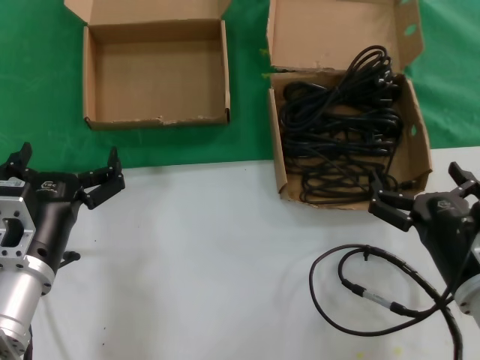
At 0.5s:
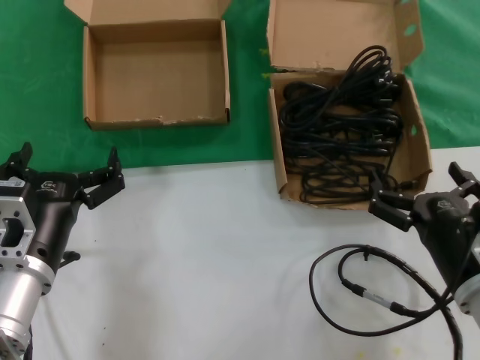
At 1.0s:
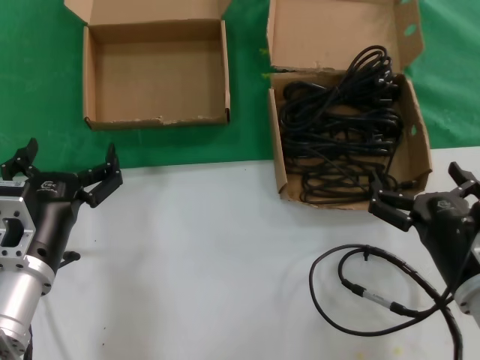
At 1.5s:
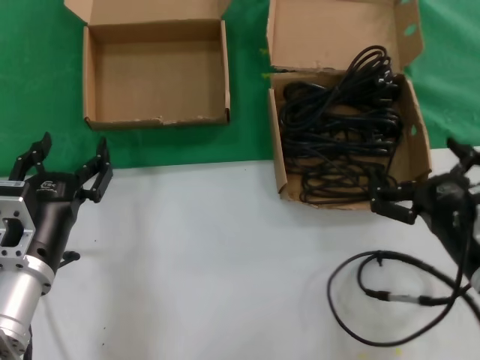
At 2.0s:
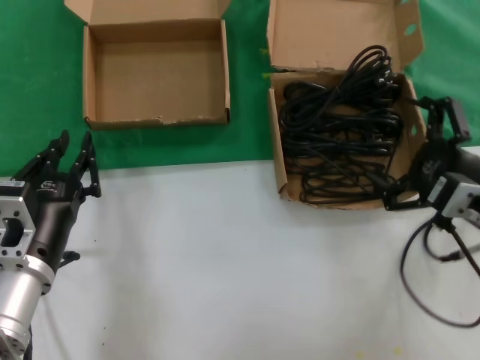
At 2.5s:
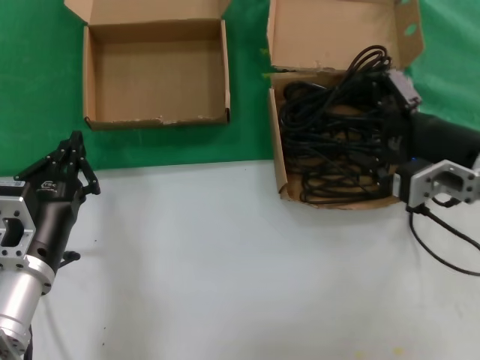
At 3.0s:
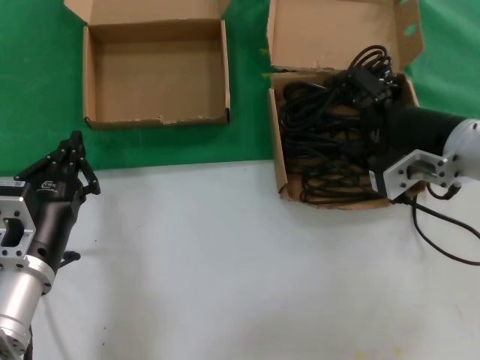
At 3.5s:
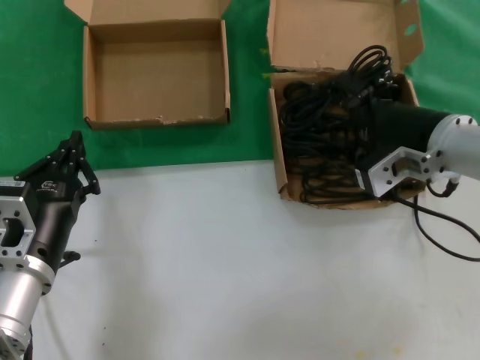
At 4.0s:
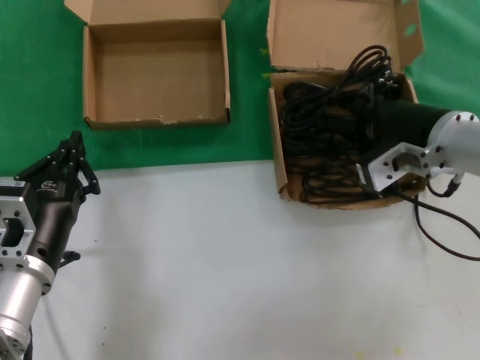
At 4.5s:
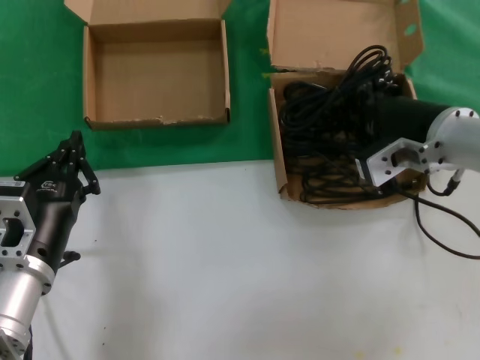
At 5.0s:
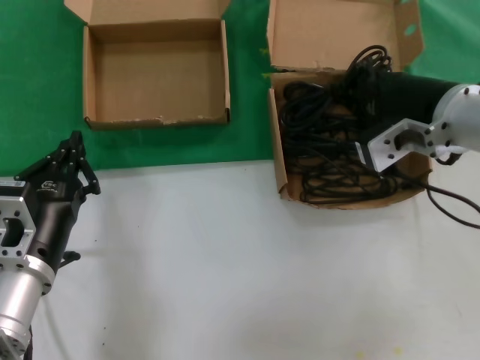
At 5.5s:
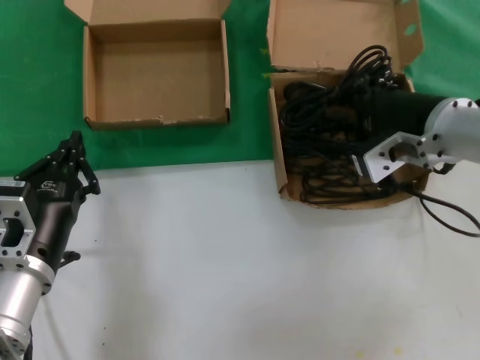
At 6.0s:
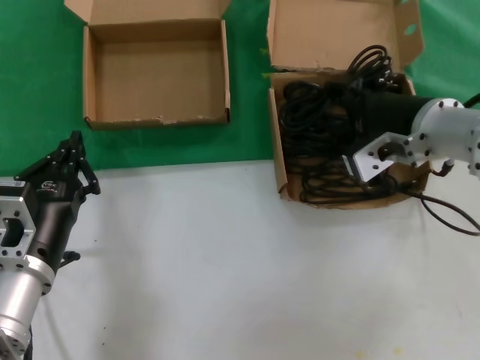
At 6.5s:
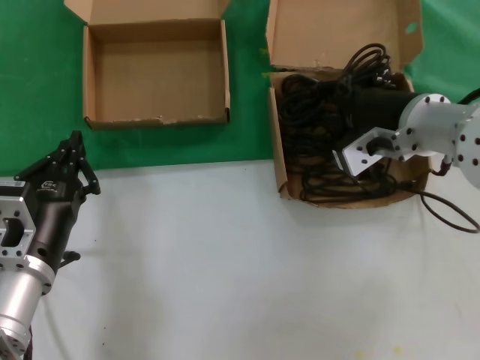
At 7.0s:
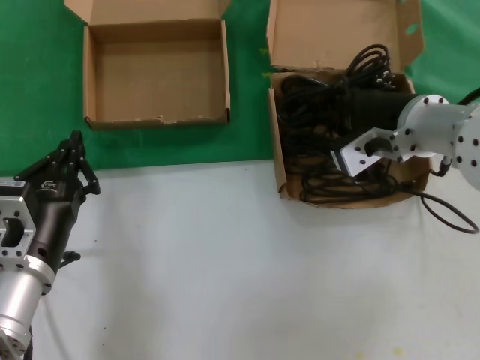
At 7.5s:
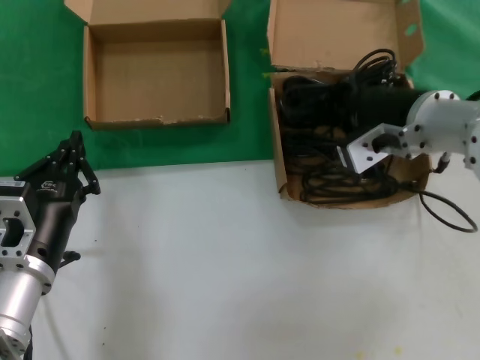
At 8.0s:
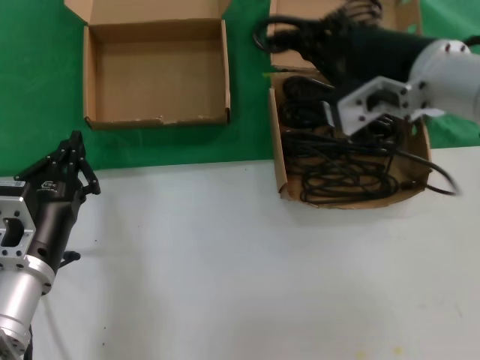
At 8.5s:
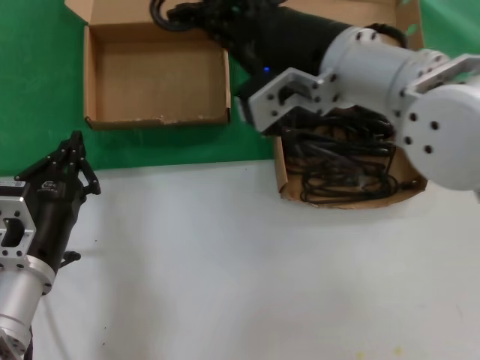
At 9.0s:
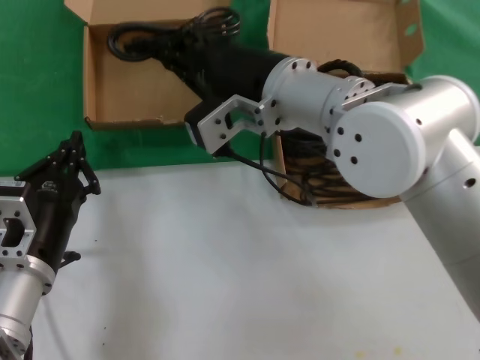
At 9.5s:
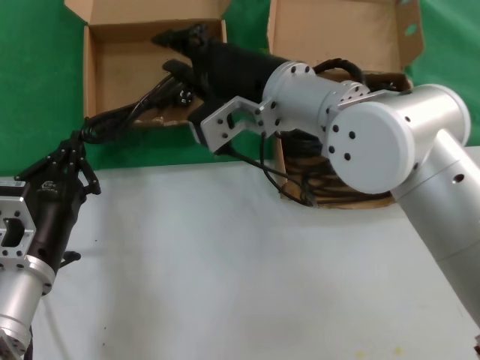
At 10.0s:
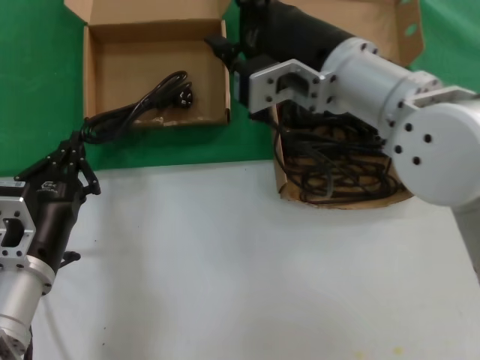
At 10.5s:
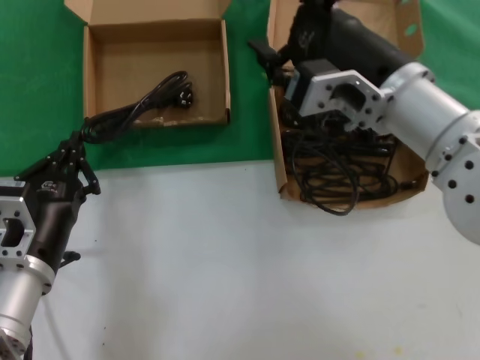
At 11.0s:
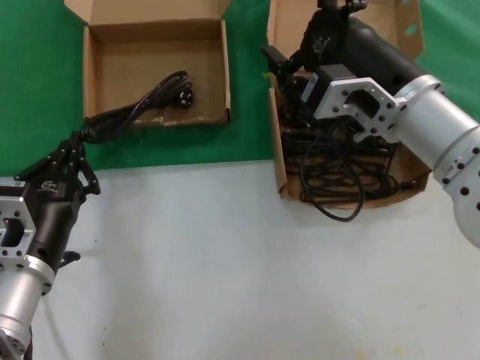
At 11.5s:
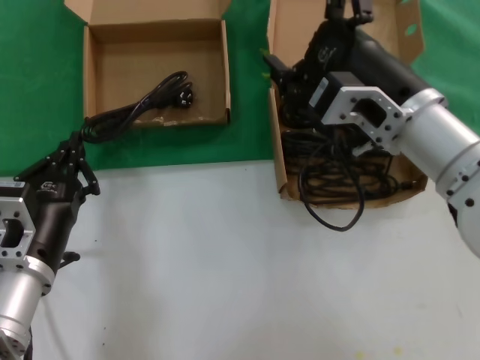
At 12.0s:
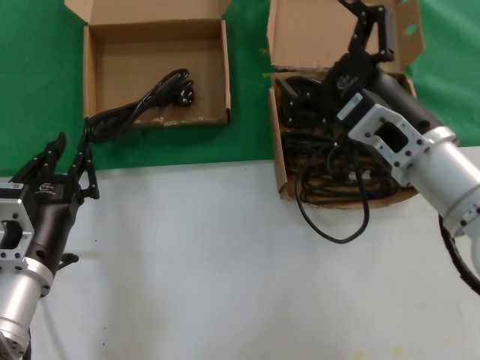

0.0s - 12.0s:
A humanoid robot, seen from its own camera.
Task of the whole recording: take the parts from the box containing them and put them into an empty box.
Step, 0.0s - 7.0s: Grasp the data cable.
Step, 7.5s - 9.0s: Place the data cable in the another box.
0.0s - 2.0s: The right hand shifts roughly 10 cm upward.
2.0s - 4.0s: The right hand shifts roughly 15 cm forward, upward and to the left.
4.0s - 6.0s: There are only small adjustments of the hands.
6.0s - 8.0s: The right hand travels upward by roughly 5 cm.
8.0s - 10.0s: The right hand heads to the left, covering roughly 10 cm.
10.0s - 12.0s: The right hand goes roughly 10 cm downward and to the right.

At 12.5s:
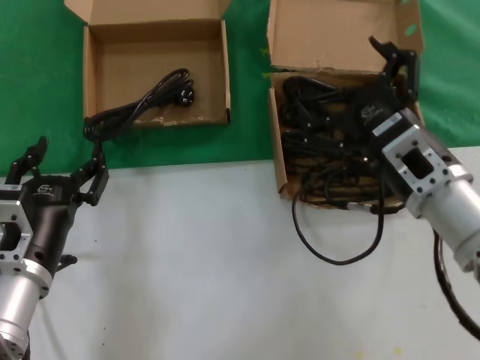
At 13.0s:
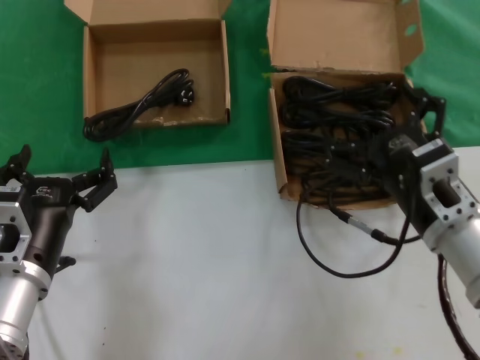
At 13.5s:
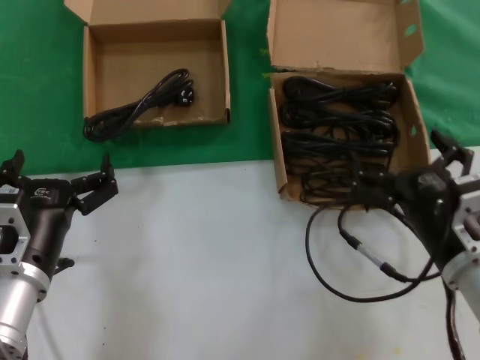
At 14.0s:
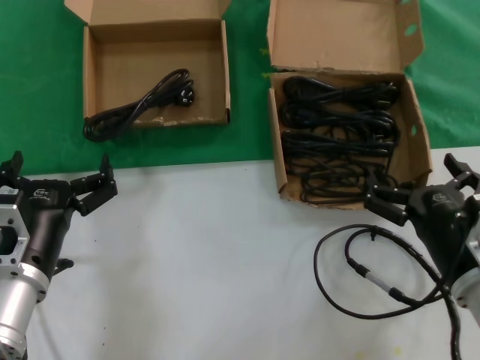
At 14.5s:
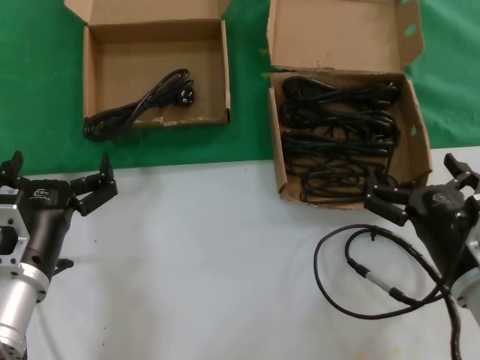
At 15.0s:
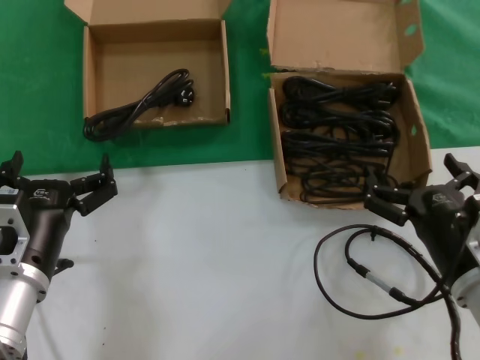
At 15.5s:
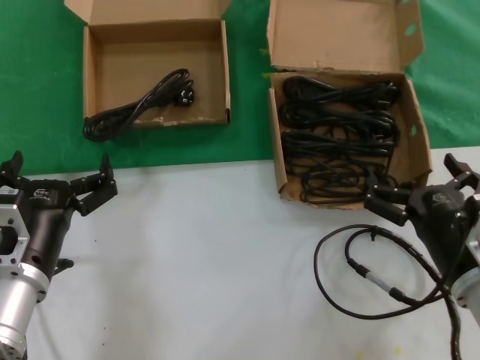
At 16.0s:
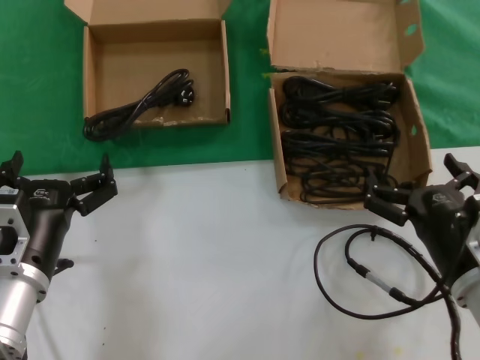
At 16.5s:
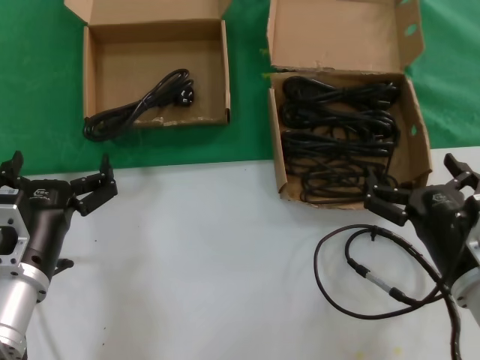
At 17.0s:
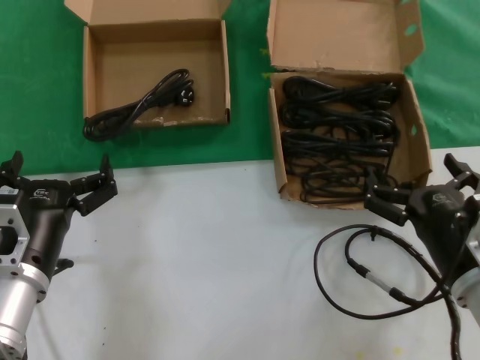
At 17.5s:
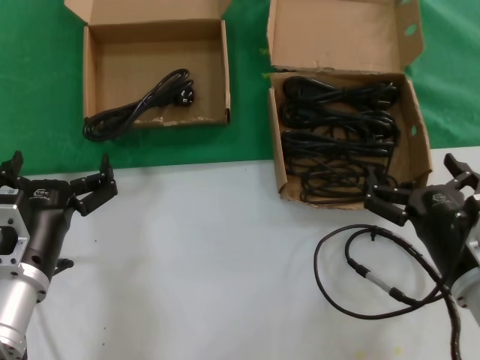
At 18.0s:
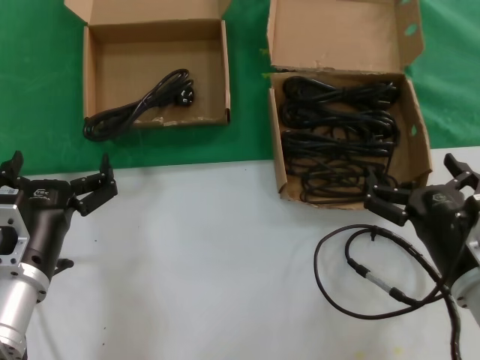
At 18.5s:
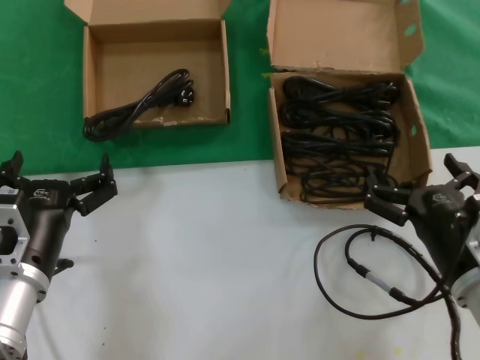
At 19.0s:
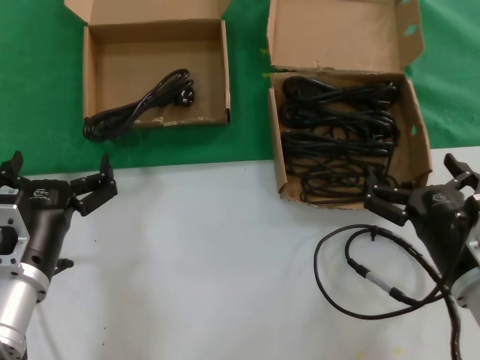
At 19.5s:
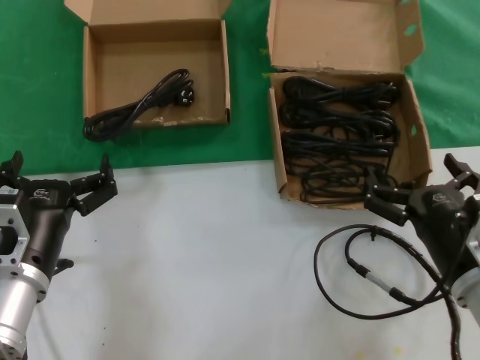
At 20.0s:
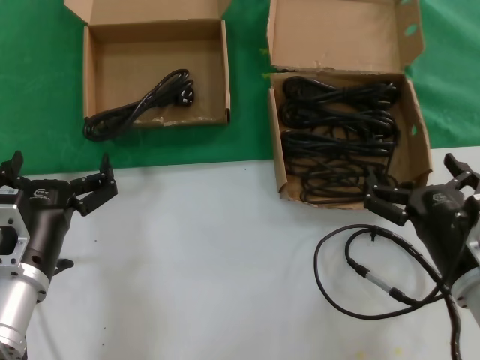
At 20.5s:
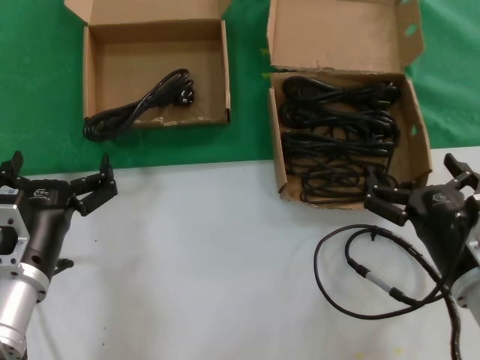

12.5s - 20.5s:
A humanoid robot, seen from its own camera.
Task of the whole recording: take the parts from the box containing them and put them into an empty box.
12.5s - 14.5s: The right hand travels downward and backward by some 10 cm.
14.5s - 20.5s: Both hands stay about where they are.

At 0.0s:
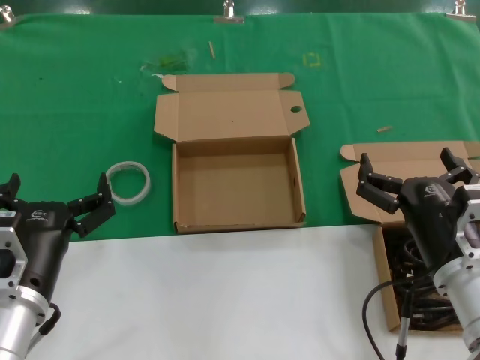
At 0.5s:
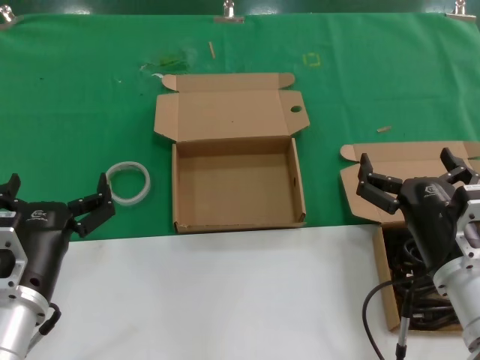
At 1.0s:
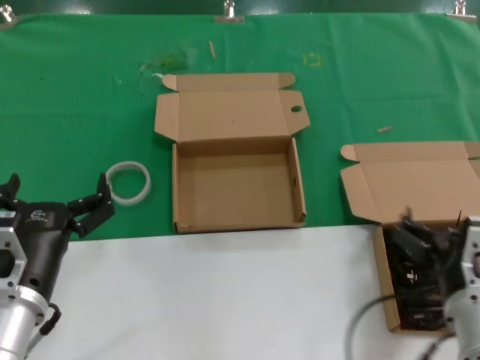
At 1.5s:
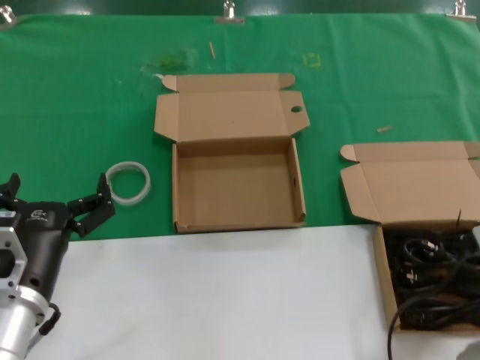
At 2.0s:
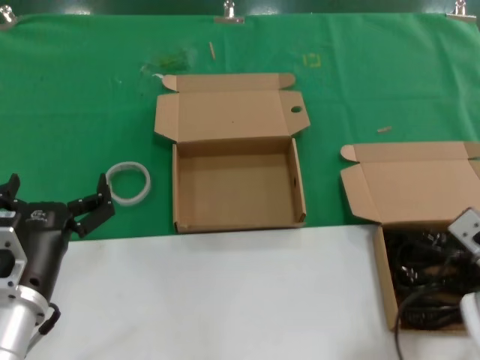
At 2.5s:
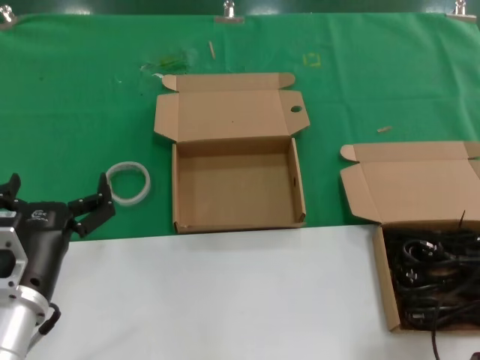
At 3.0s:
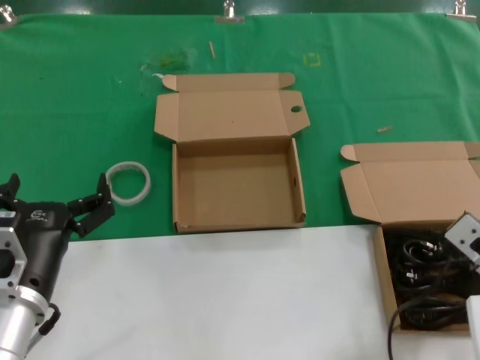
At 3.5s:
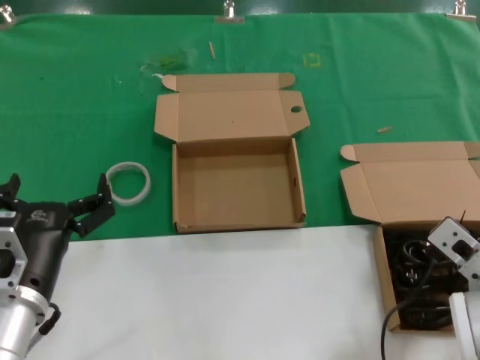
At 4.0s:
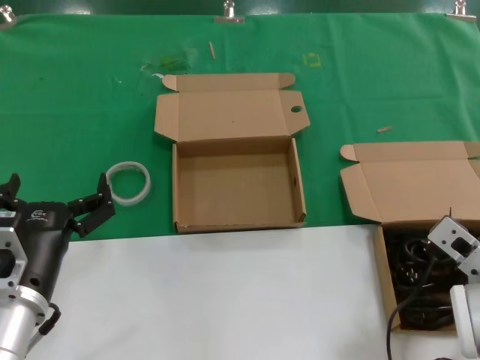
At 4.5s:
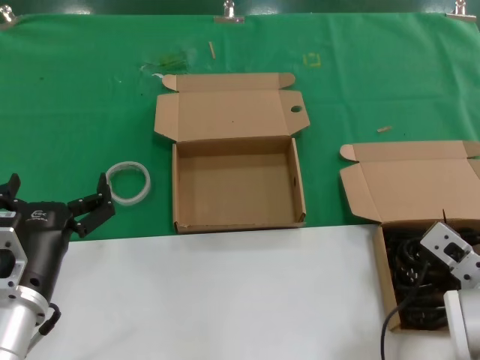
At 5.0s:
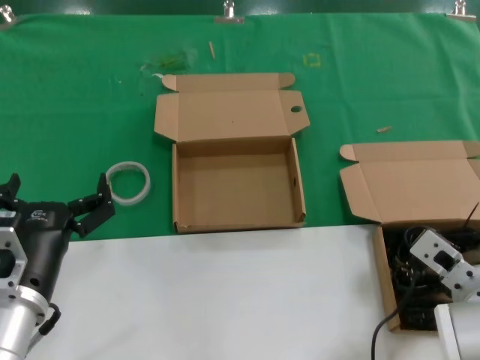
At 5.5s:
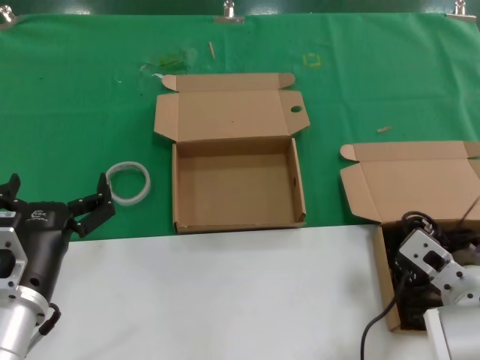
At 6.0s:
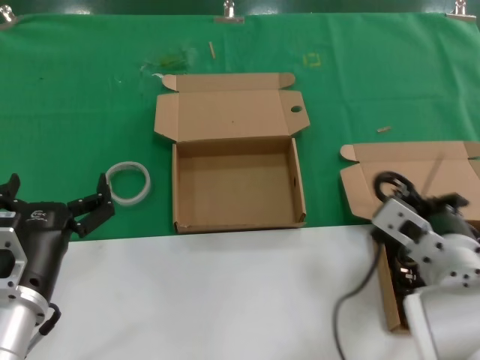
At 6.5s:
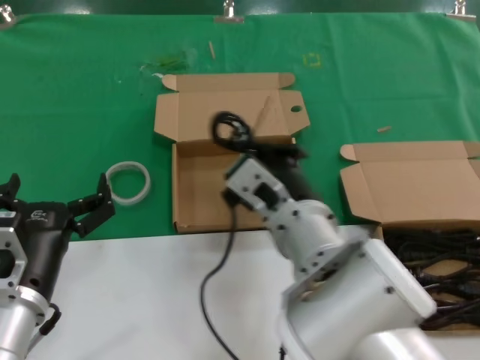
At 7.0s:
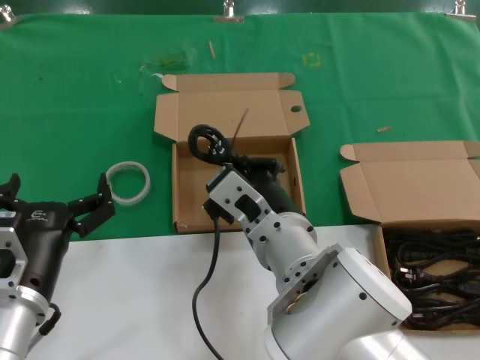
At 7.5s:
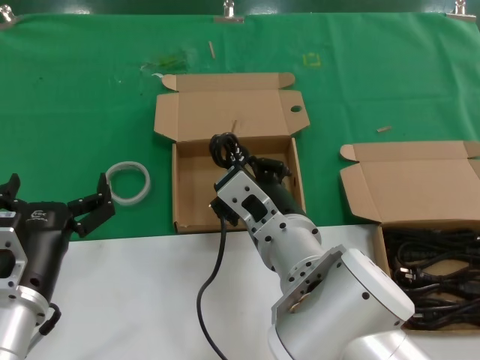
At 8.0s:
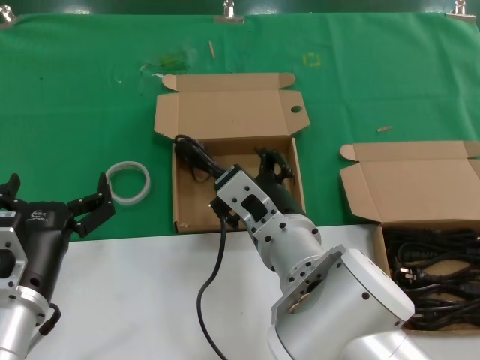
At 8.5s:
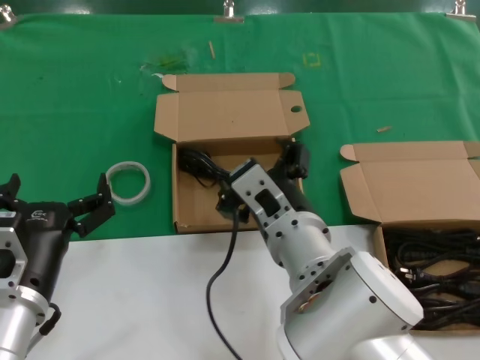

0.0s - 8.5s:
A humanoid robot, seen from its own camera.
Task of the whole recording: take the parts from the box containing them and put them into an empty box.
Step, 0.0s - 2.0s: Grasp the data cable.
Step, 2.5s - 8.5s: Place the data cable in the another box.
0.0s - 2.0s: The right hand ends up approximately 5 cm from where it was.
2.0s - 4.0s: There are only small adjustments of the hands.
4.0s - 6.5s: The right hand is displaced to the left by approximately 20 cm.
6.5s - 8.5s: The hands make only small movements.
